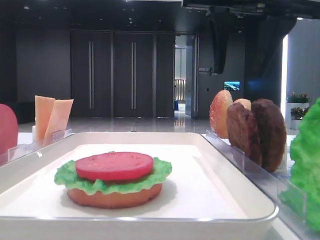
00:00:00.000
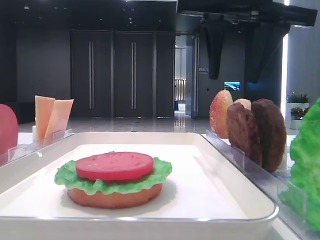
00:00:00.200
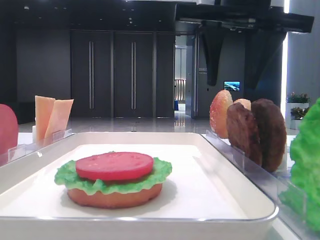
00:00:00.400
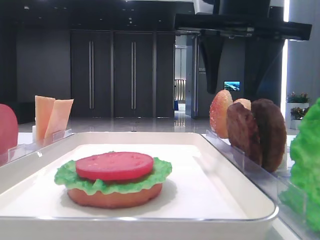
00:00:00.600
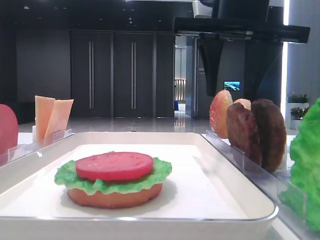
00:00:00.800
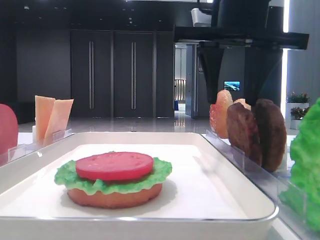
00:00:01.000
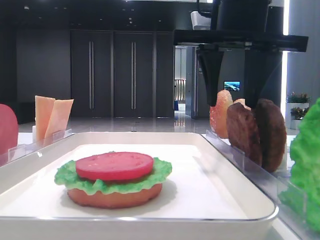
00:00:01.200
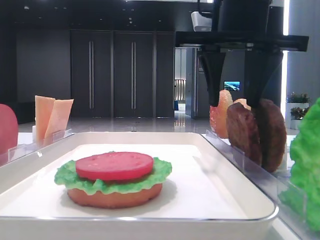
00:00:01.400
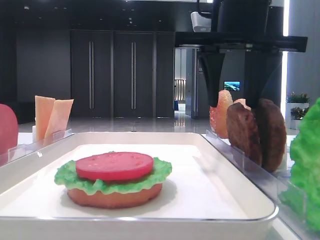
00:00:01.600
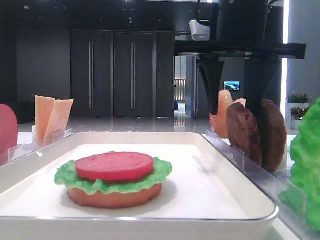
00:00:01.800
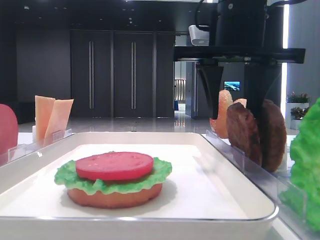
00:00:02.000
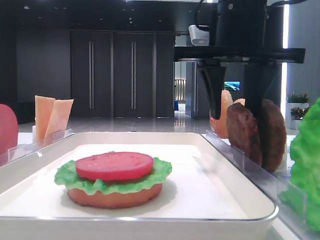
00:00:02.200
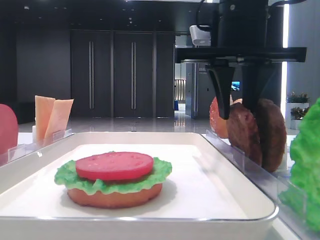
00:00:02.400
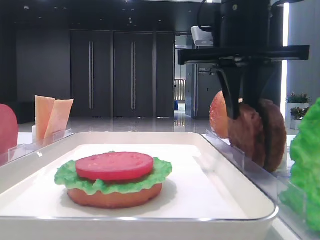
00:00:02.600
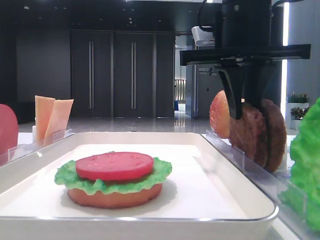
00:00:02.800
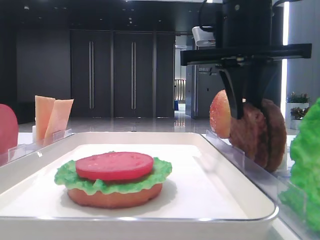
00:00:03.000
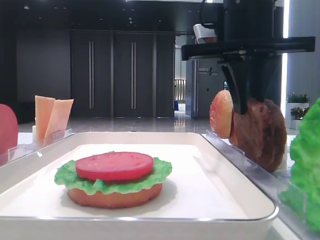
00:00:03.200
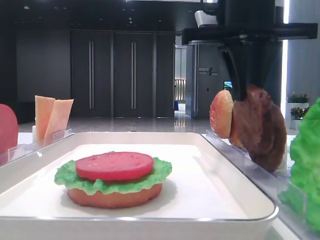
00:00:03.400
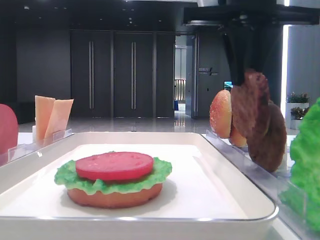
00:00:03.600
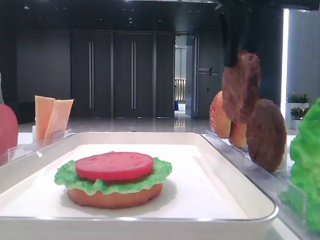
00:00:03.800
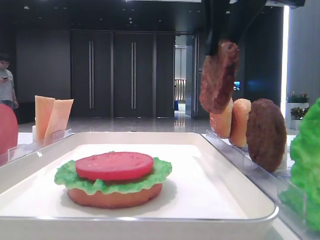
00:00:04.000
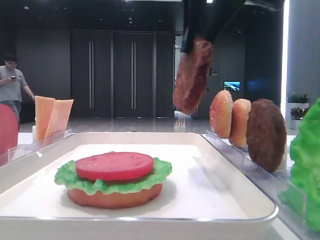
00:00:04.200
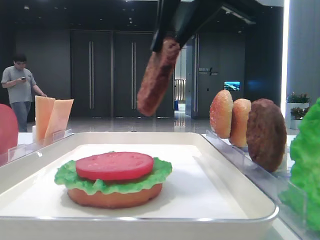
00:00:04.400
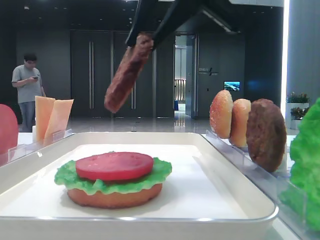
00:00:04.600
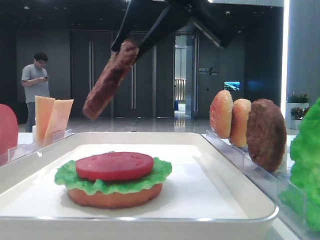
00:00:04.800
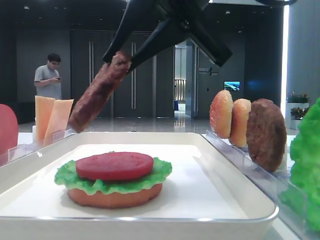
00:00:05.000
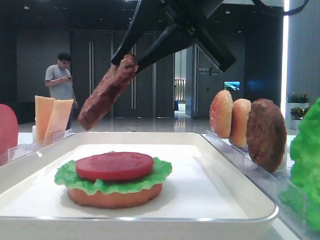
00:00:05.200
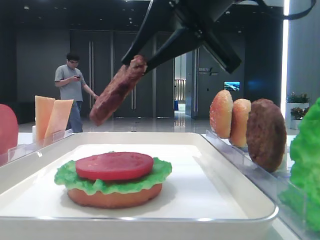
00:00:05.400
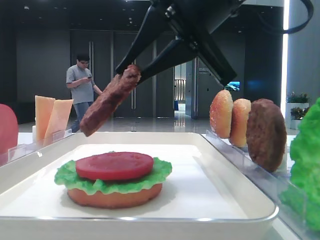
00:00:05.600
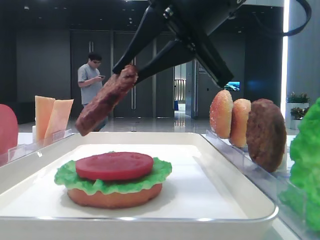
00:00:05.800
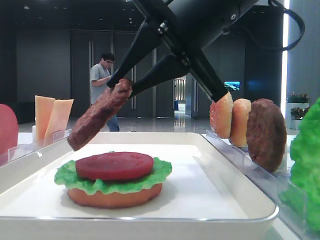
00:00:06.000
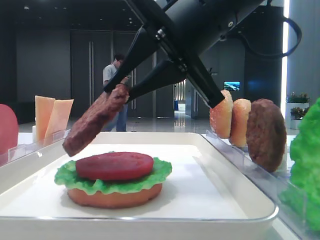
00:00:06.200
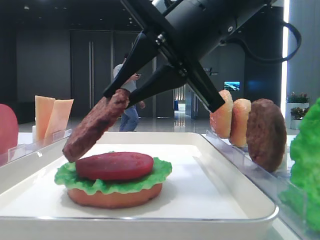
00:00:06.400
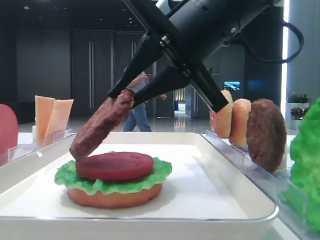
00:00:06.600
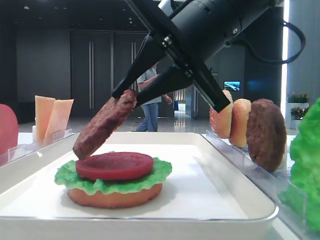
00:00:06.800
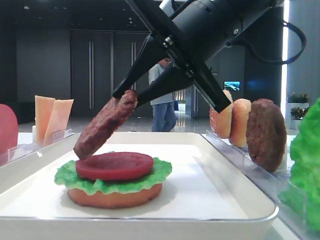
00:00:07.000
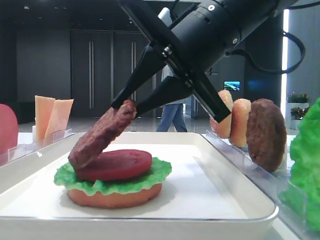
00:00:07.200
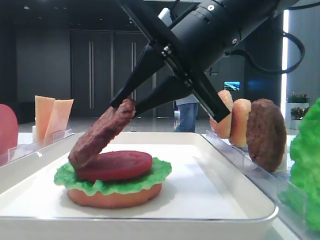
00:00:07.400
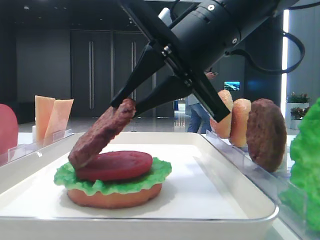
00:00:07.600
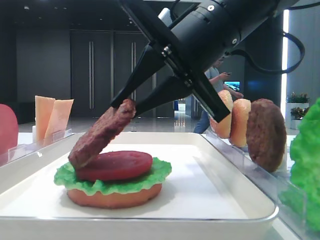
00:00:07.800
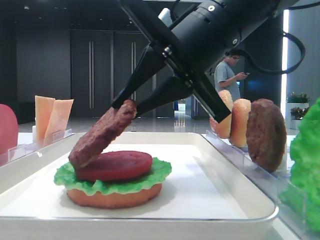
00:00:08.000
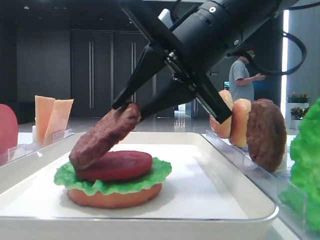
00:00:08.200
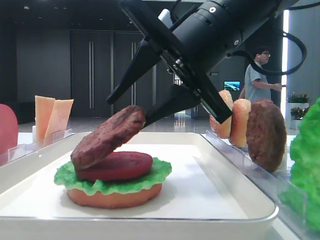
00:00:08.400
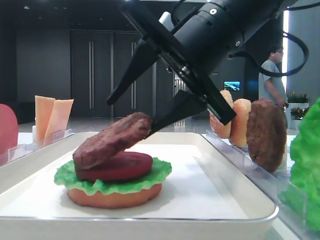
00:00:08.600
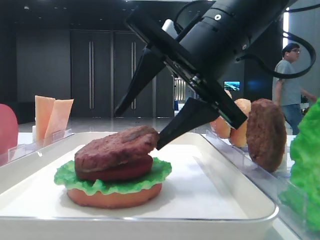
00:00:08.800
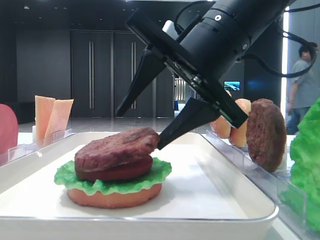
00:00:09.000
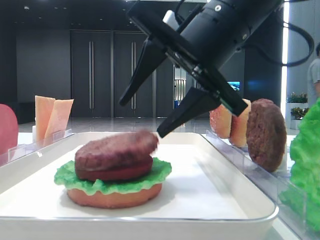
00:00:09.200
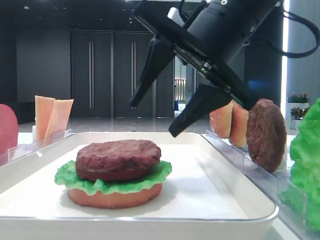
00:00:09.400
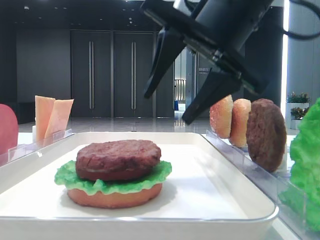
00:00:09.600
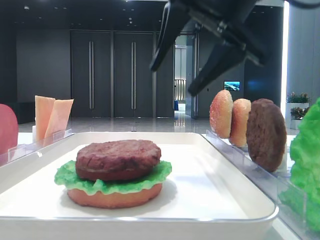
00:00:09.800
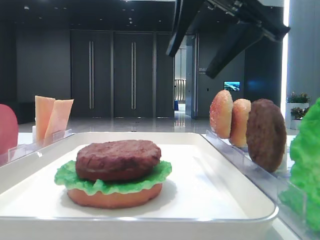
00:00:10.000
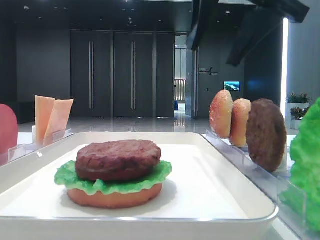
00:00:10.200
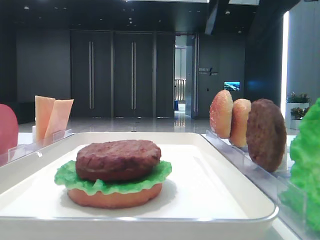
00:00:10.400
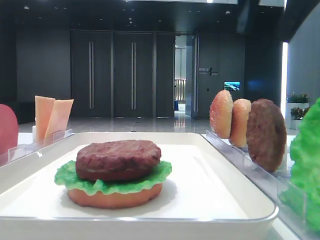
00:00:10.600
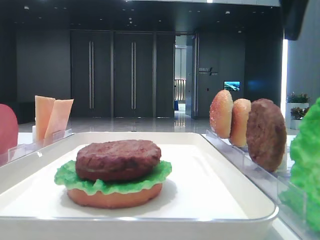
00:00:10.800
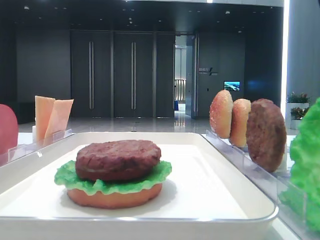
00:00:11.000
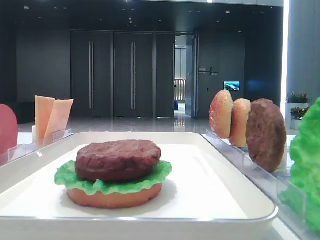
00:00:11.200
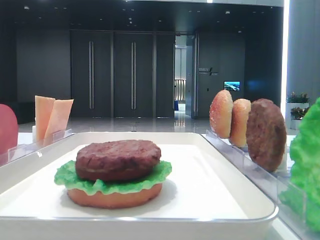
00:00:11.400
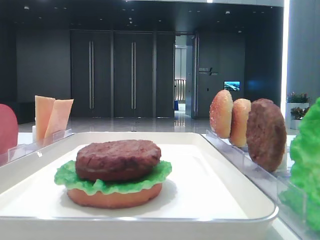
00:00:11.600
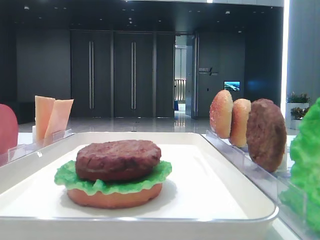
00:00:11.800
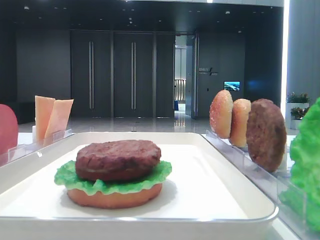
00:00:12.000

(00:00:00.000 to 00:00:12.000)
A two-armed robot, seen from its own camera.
Step, 00:00:00.000 - 00:00:02.600: Grab the patty with the right hand.
Step, 00:00:02.800 - 00:00:09.000: Place the patty on the tomato slice with the right hand.
00:00:00.000 - 00:00:01.600: The grippers move only a little.
00:00:01.600 - 00:00:03.000: The right gripper closes up.
00:00:03.000 - 00:00:04.400: The right gripper moves upward and backward, approximately 10 cm.
00:00:04.400 - 00:00:06.000: The right gripper goes some 5 cm downward.
00:00:06.000 - 00:00:07.600: There are only small adjustments of the grippers.
00:00:07.600 - 00:00:09.000: The right gripper opens its fingers.
00:00:09.000 - 00:00:10.400: The right gripper heads upward and to the right, covering some 15 cm.
00:00:10.400 - 00:00:12.000: The right gripper heads to the right, covering approximately 15 cm.

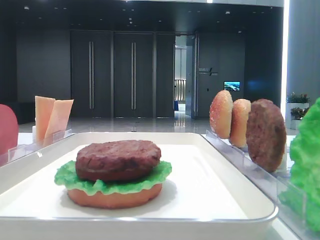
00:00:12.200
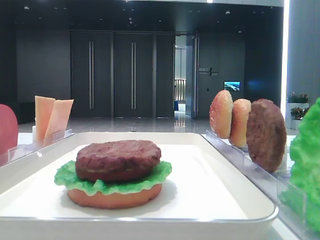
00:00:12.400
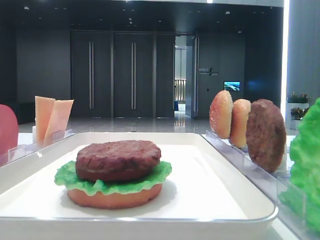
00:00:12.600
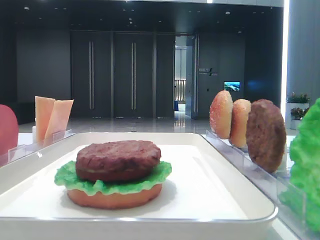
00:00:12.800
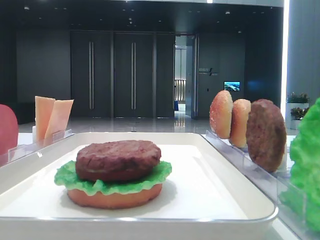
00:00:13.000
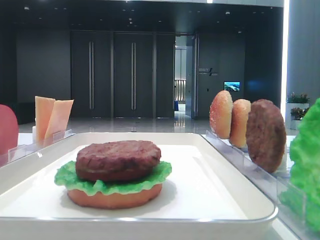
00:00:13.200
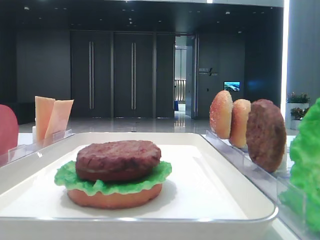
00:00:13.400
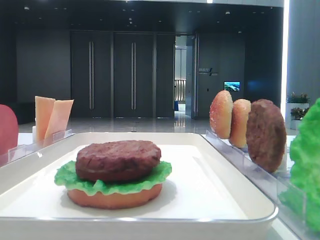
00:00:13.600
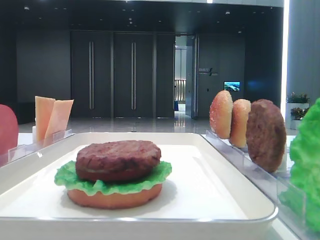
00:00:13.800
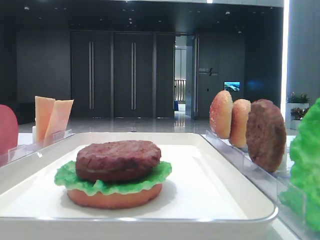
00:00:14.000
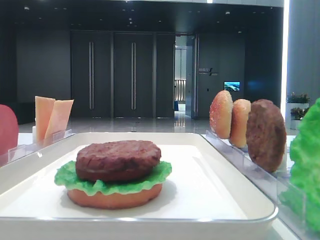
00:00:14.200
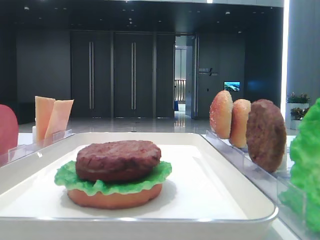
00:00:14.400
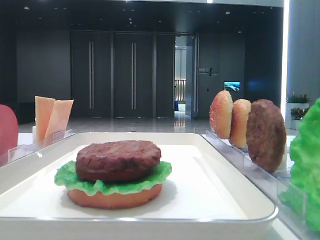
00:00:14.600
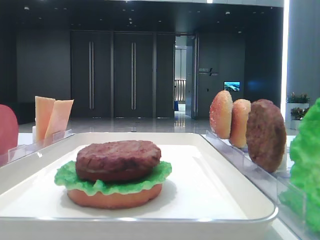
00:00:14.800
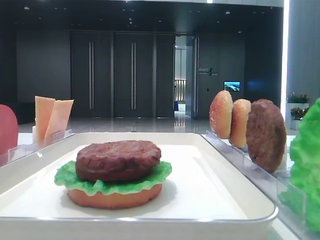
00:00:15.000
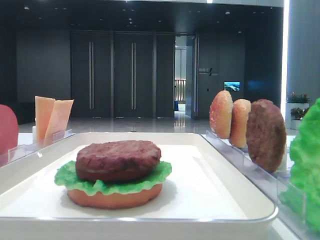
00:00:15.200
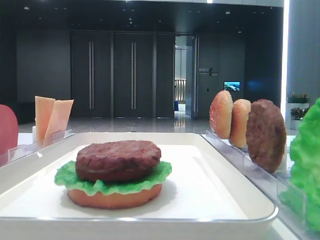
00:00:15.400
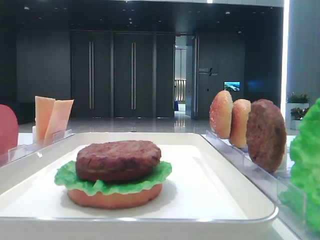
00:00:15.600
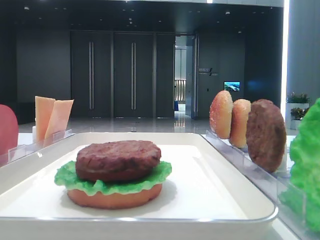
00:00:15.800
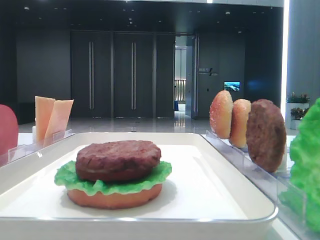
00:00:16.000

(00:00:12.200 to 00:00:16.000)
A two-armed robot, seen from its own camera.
00:00:13.400 - 00:00:16.000: Both grippers stay about where they are.

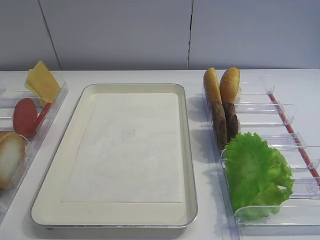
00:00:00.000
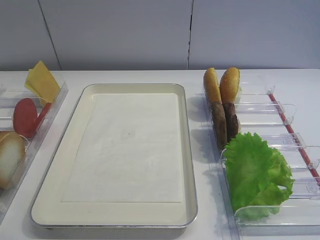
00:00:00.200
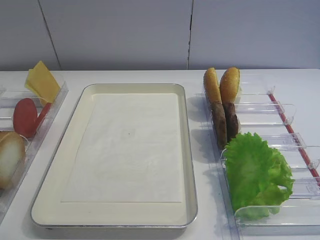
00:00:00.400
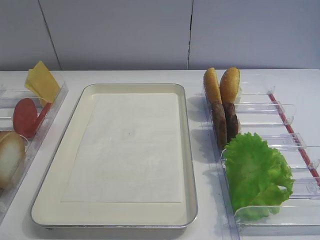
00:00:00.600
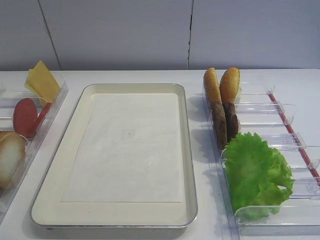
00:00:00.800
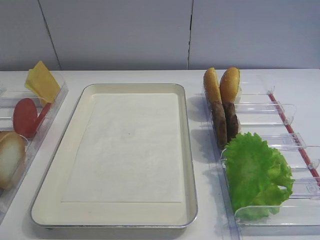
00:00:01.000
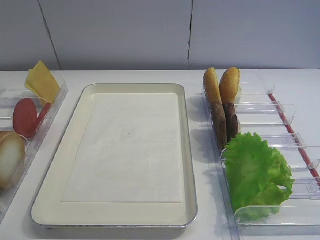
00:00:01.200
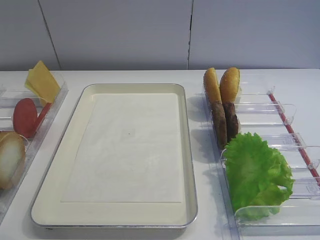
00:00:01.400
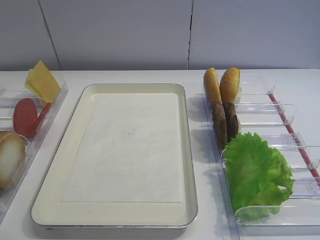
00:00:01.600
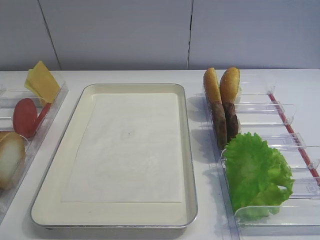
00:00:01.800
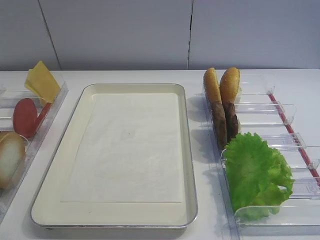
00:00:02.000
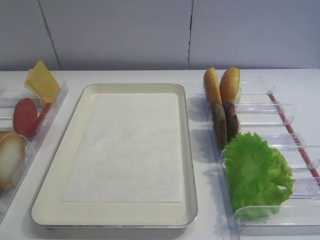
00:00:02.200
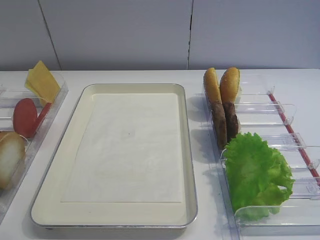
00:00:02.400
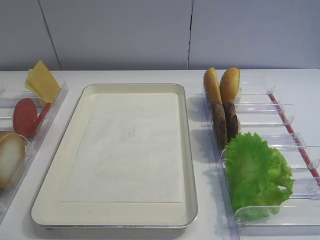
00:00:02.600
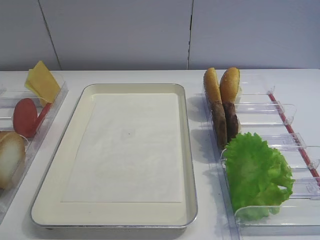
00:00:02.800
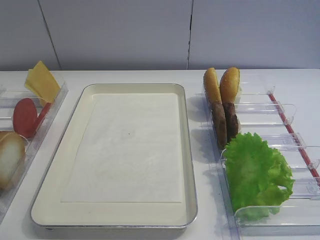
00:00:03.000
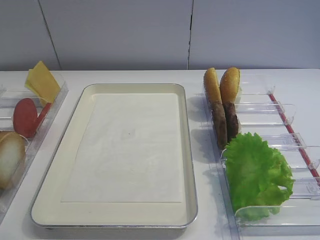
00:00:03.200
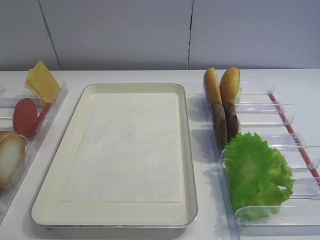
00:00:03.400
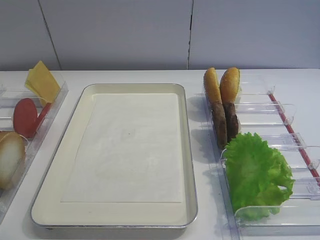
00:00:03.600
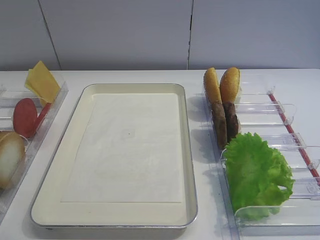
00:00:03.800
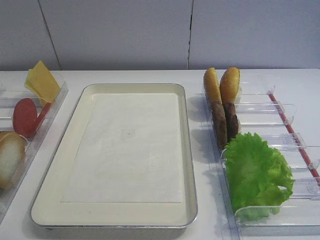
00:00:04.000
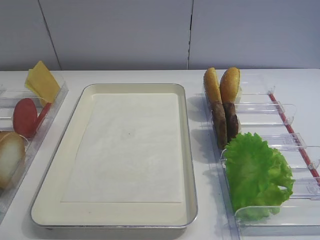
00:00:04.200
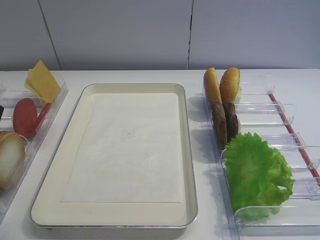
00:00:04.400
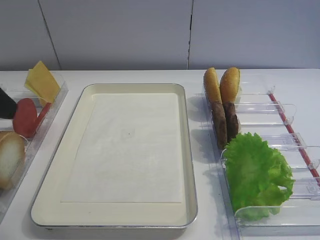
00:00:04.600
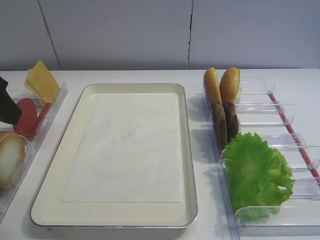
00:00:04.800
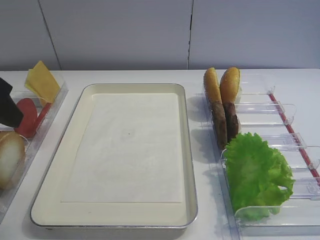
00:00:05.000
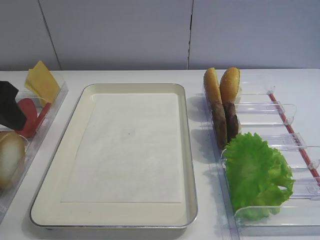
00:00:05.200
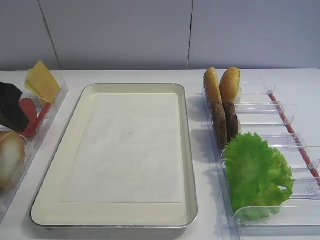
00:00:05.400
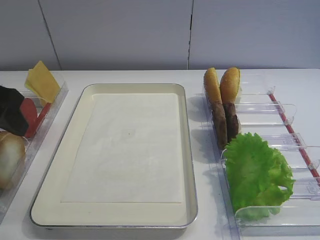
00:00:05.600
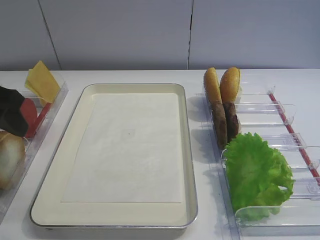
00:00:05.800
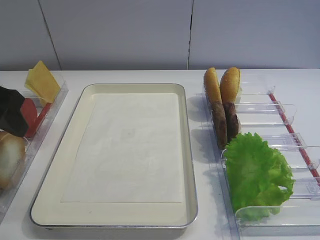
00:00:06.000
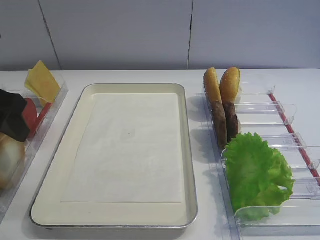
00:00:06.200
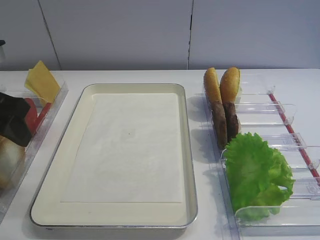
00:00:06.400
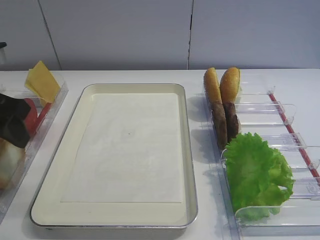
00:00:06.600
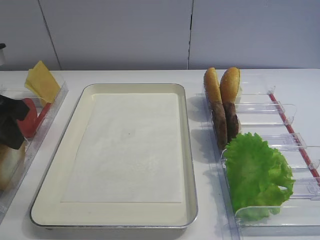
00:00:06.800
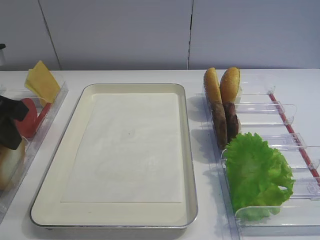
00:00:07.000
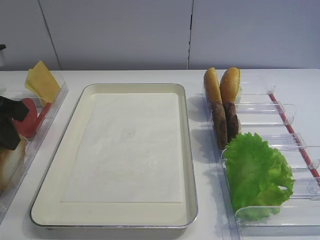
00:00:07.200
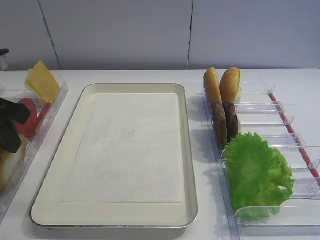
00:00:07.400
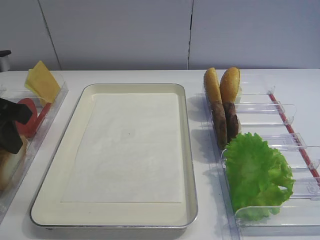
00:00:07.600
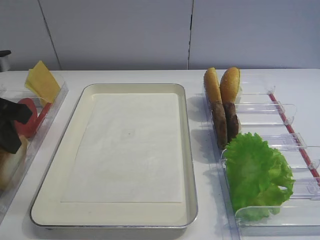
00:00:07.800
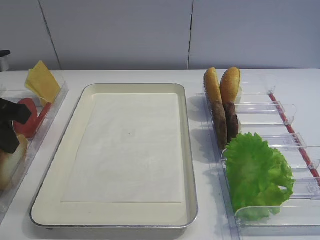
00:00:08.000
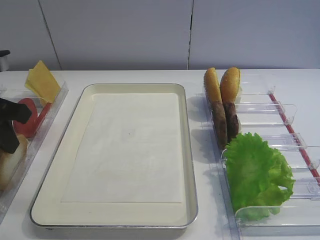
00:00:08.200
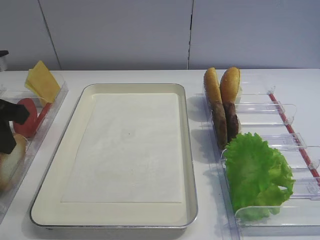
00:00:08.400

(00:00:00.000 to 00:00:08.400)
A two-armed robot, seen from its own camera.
00:00:04.200 - 00:00:05.600: The left gripper shifts some 10 cm forward.
00:00:05.600 - 00:00:07.000: The left gripper closes up.
00:00:07.000 - 00:00:08.400: The two grippers keep their place.
